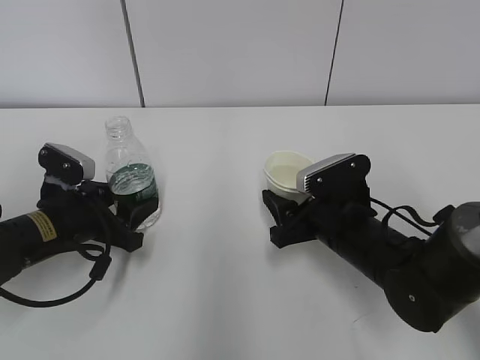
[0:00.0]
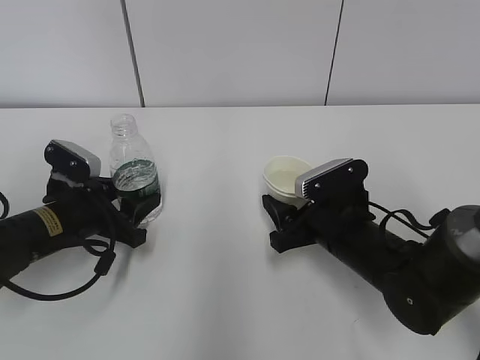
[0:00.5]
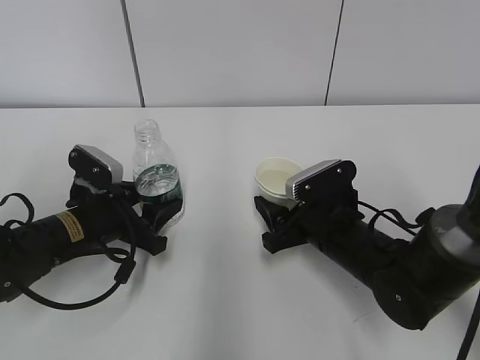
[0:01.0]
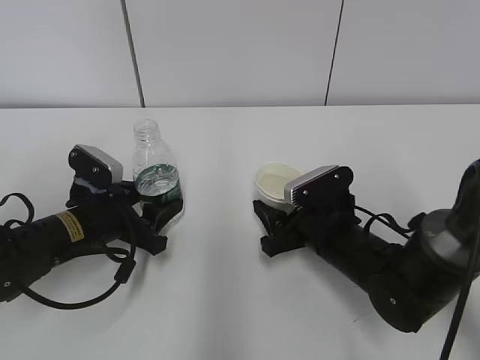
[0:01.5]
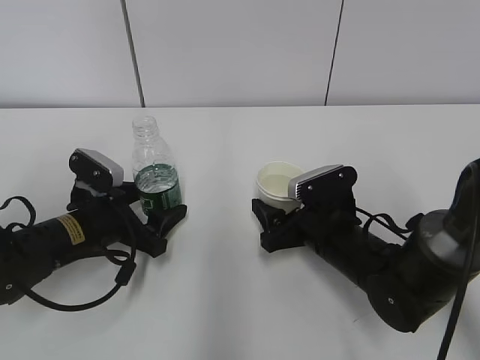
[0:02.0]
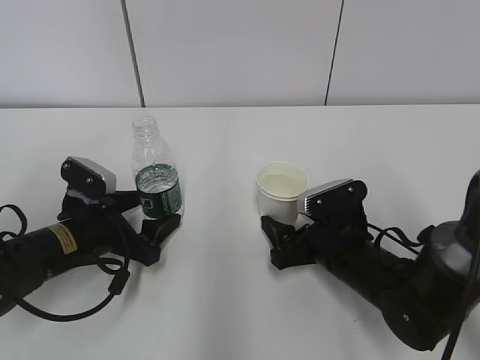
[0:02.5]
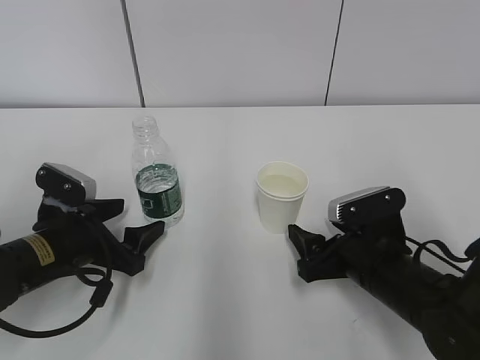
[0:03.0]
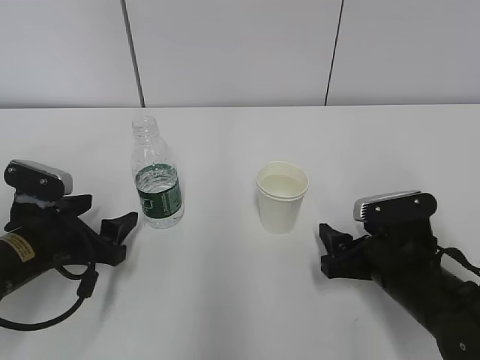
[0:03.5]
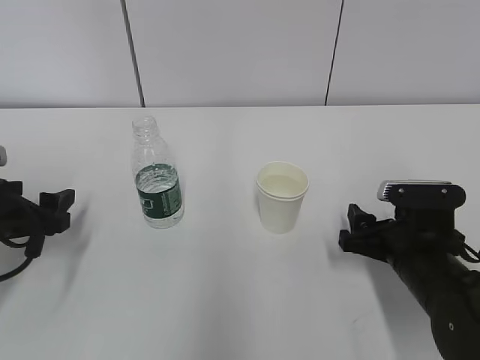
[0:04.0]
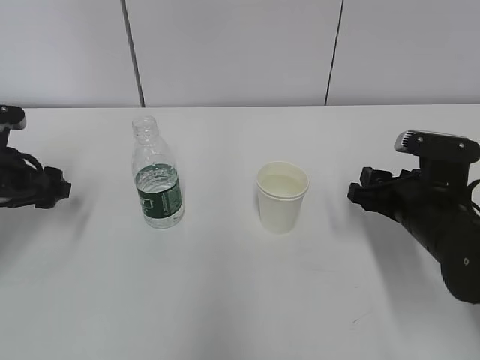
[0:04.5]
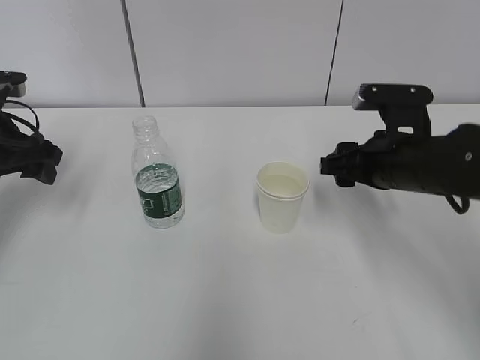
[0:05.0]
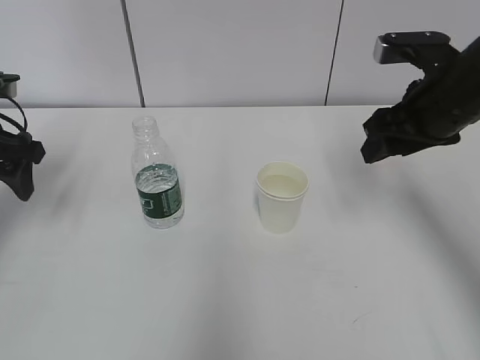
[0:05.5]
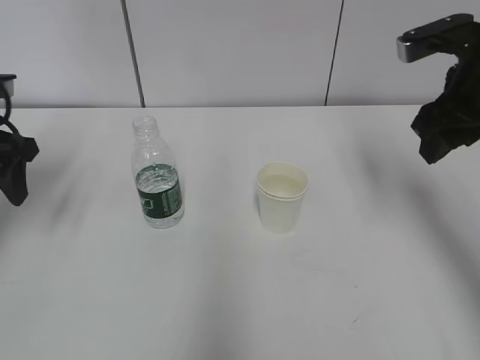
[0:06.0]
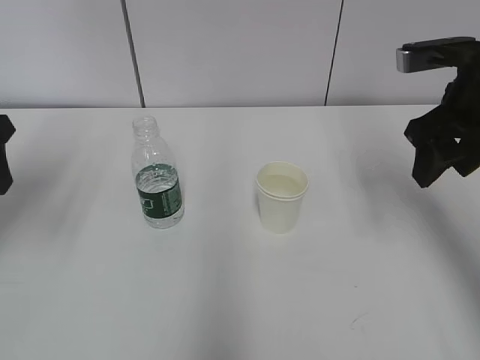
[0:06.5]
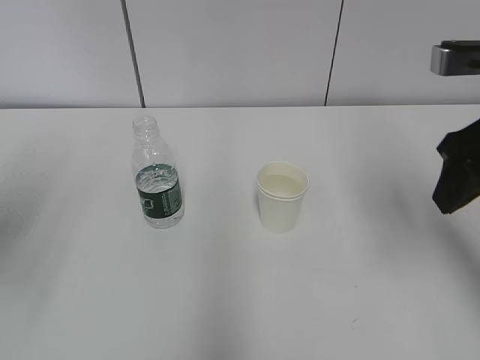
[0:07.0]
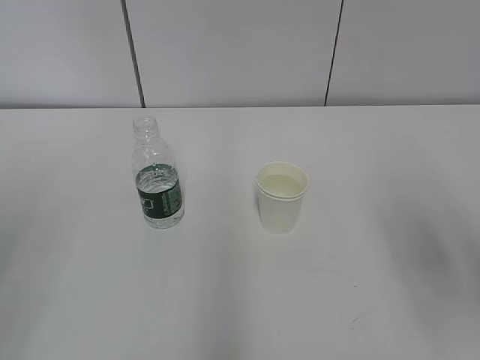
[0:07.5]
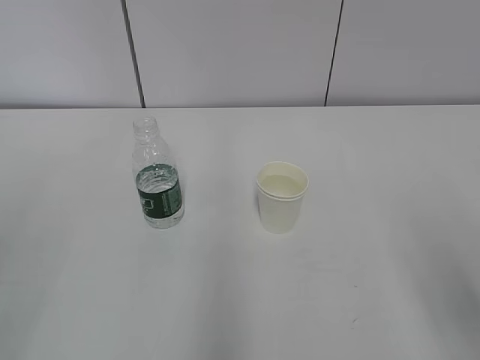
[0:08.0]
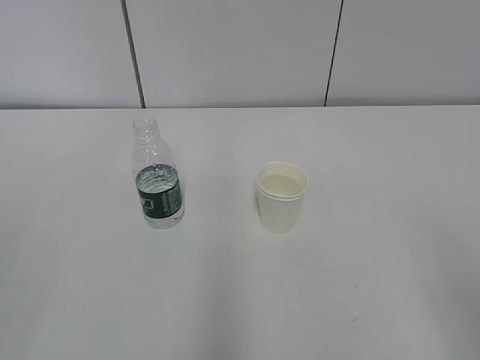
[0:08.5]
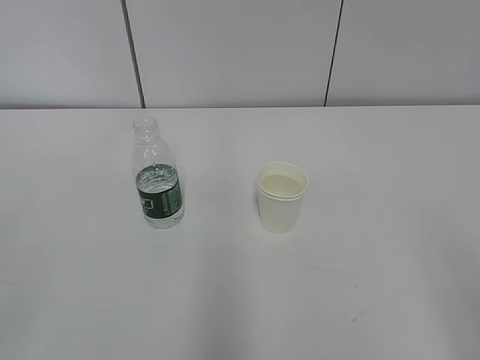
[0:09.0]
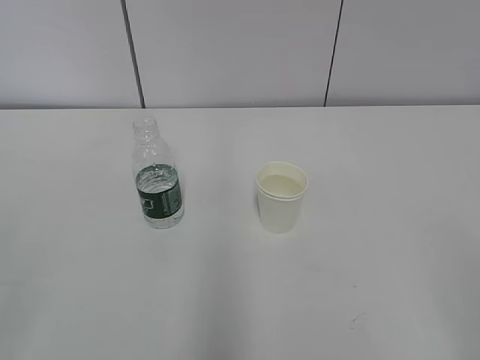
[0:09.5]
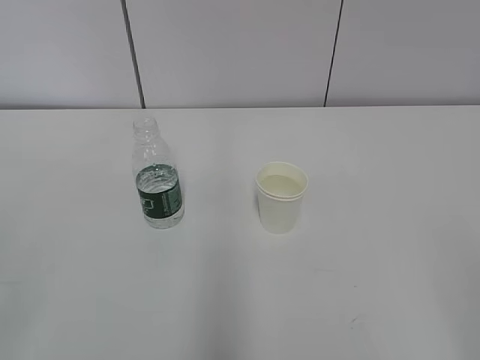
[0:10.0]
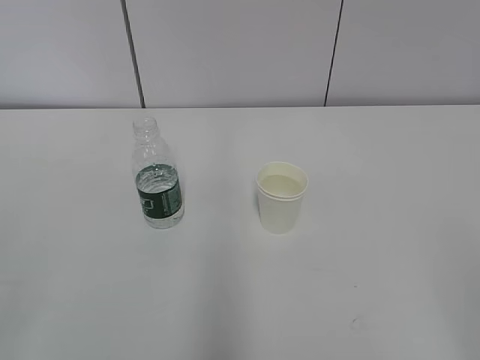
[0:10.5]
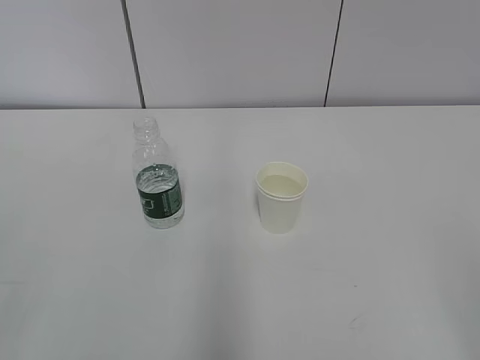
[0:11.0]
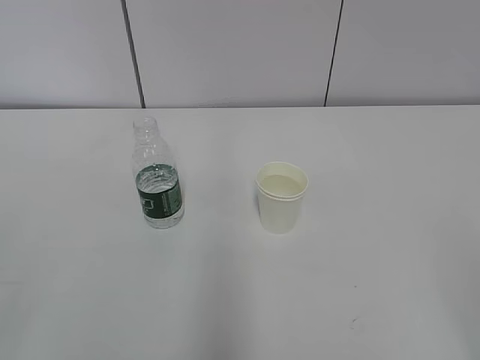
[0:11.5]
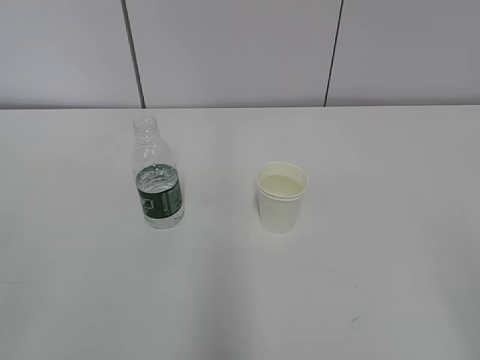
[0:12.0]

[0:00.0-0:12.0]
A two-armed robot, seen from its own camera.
0:00.0 to 0:02.0: The left gripper opens up. Meanwhile the right gripper opens up.
0:02.0 to 0:04.0: The left gripper is displaced to the left by roughly 10 cm, while the right gripper goes some 10 cm to the right and backward.
0:04.0 to 0:06.0: The left gripper heads upward and forward, covering roughly 15 cm. The right gripper moves upward, about 20 cm, and closes up.
0:06.0 to 0:08.0: Both grippers move backward, roughly 25 cm.
0:08.0 to 0:10.0: The right gripper is displaced backward by approximately 10 cm.

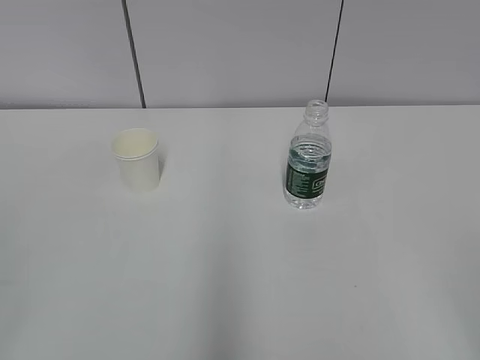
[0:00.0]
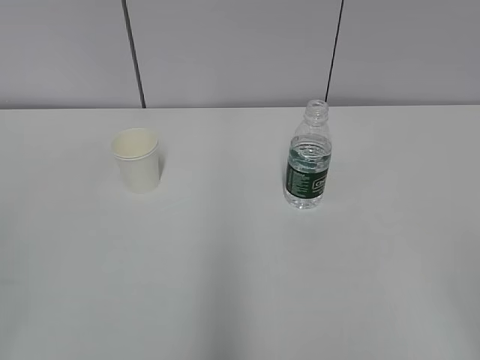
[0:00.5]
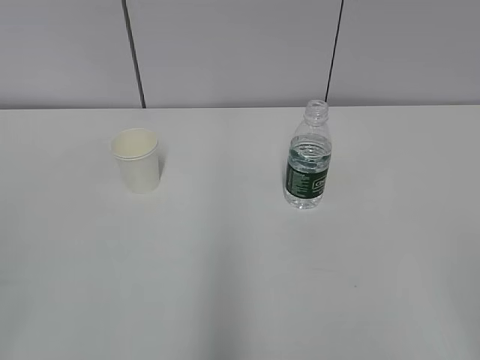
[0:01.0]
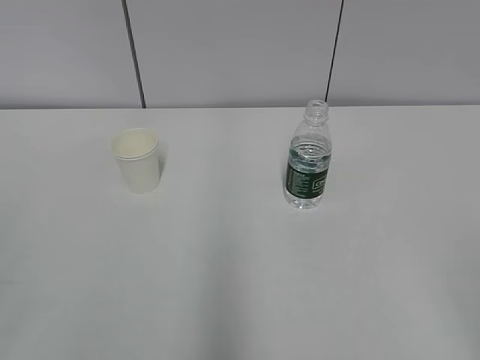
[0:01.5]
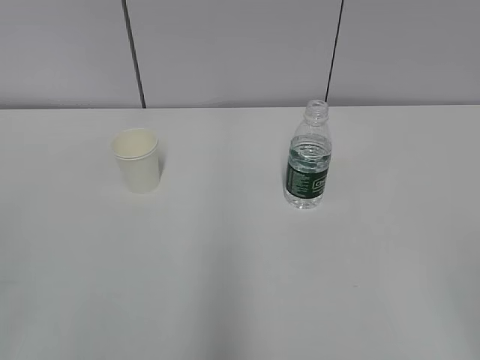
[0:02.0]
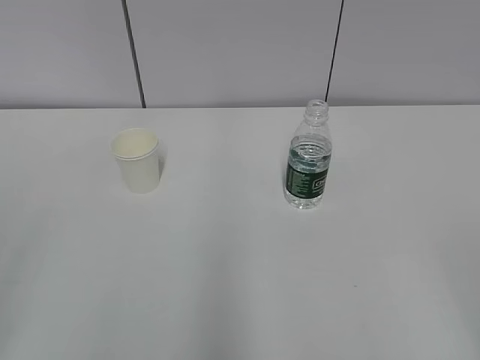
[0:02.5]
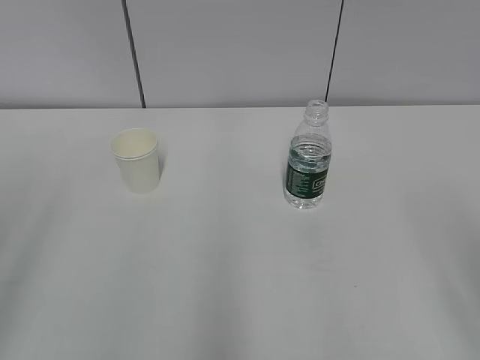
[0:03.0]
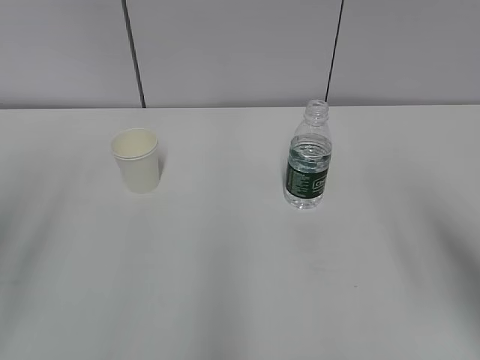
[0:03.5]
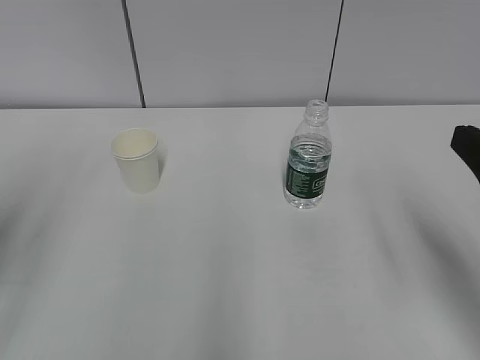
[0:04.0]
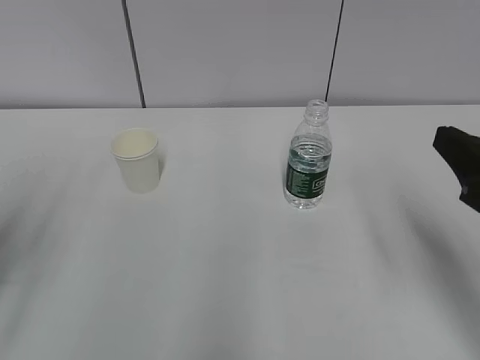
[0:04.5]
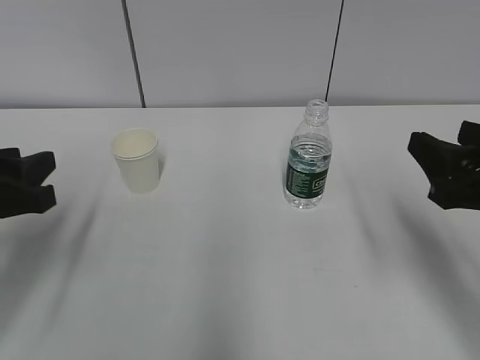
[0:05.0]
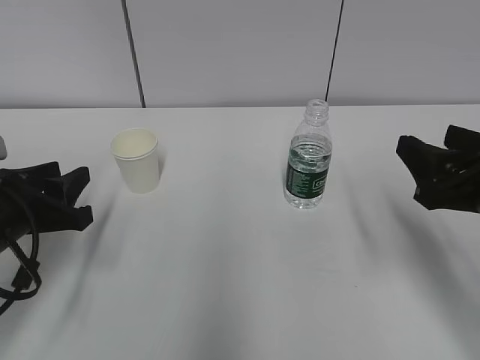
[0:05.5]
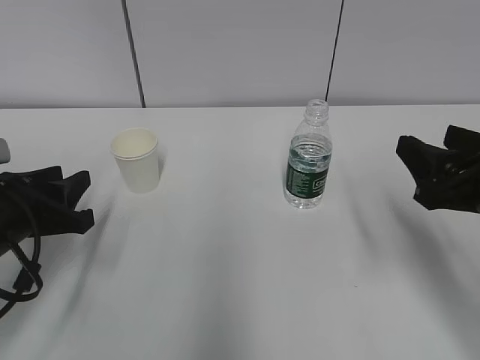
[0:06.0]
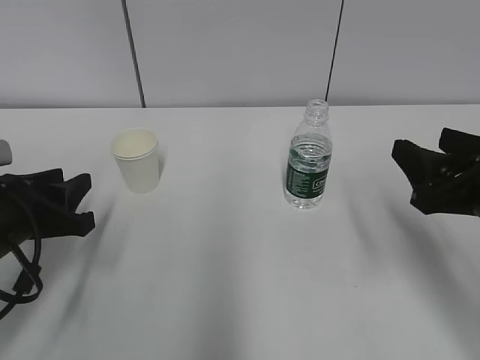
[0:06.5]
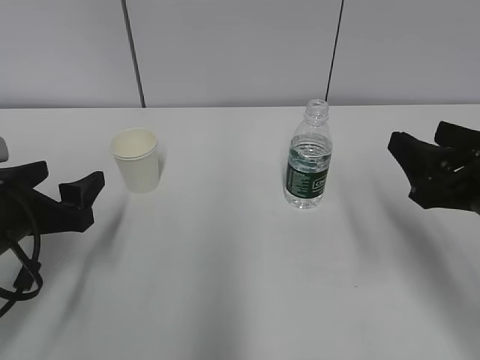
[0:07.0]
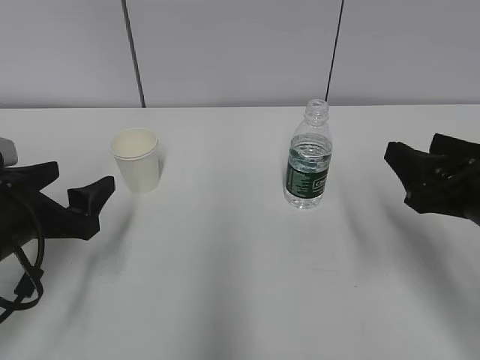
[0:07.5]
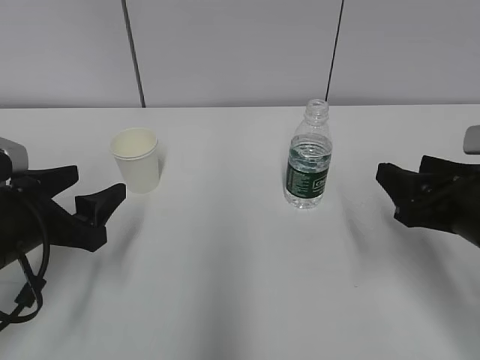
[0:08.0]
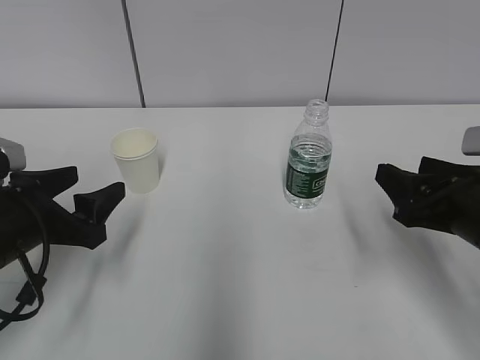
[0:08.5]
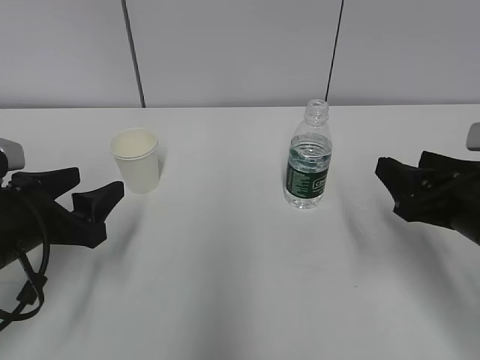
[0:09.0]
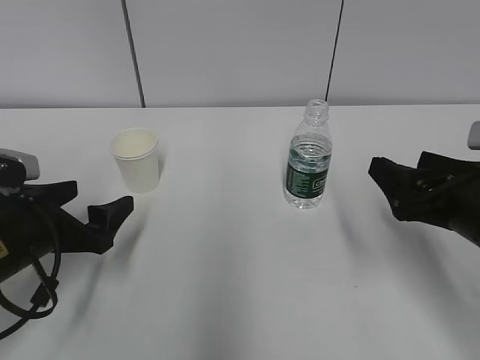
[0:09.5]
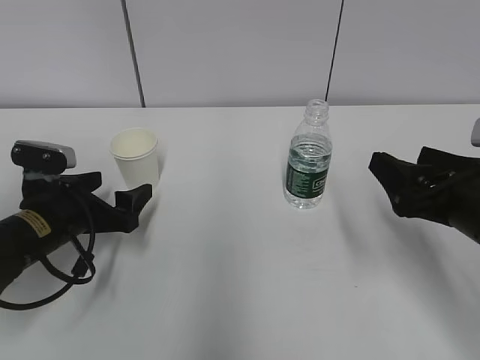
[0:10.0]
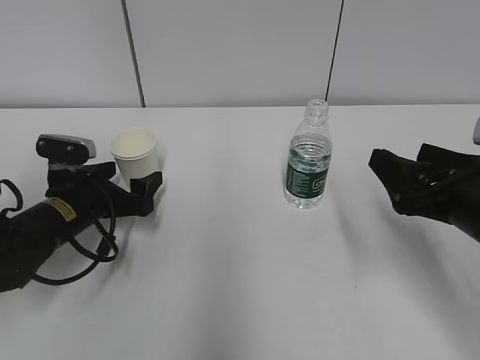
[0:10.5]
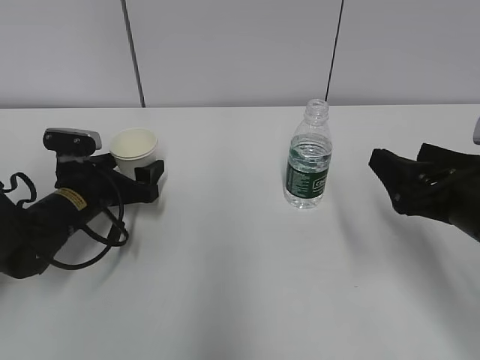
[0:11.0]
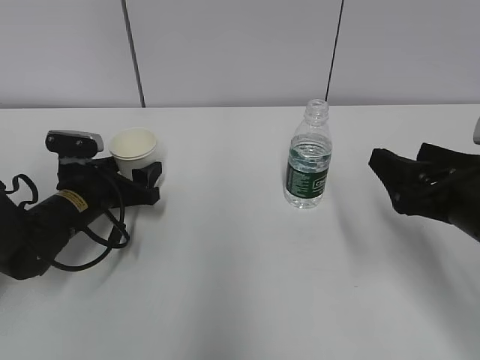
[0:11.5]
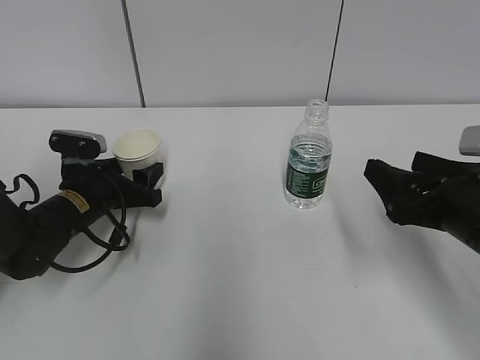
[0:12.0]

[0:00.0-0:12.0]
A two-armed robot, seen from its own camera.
Step, 0:00.0 to 0:10.0: Grab the paper cup with the left hand.
0:02.0 to 0:04.0: Both grippers travel together forward, roughly 15 cm.
0:04.0 to 0:06.0: The right gripper shifts roughly 5 cm forward and downward. The left gripper shifts approximately 20 cm downward and forward.
0:06.0 to 0:08.0: The left gripper opens up.
0:08.0 to 0:10.0: The right gripper opens. Meanwhile the left gripper goes about 5 cm forward.
0:10.0 to 0:12.0: The left gripper heads forward, covering some 5 cm, and closes.

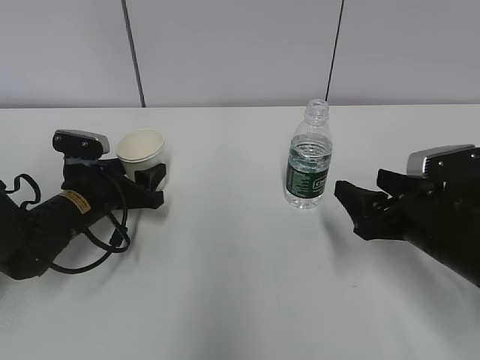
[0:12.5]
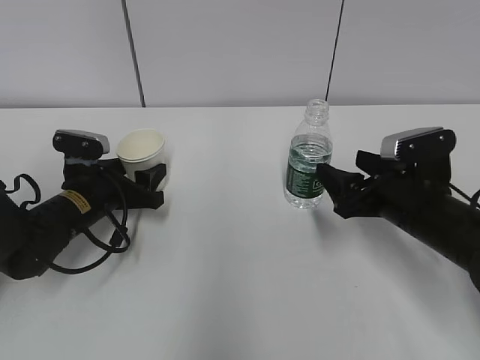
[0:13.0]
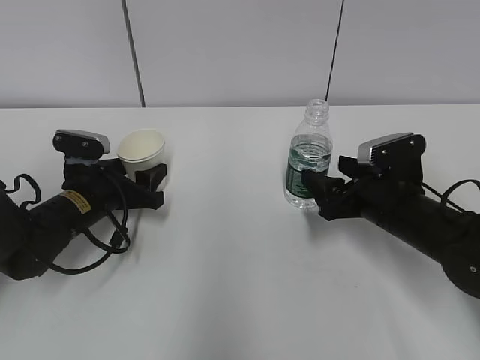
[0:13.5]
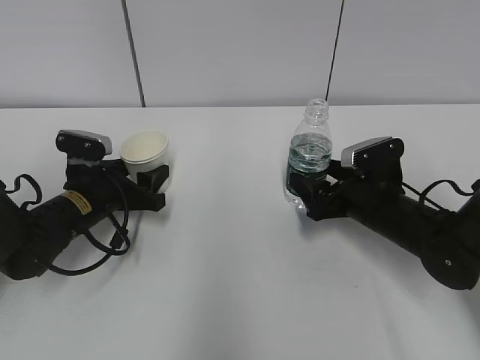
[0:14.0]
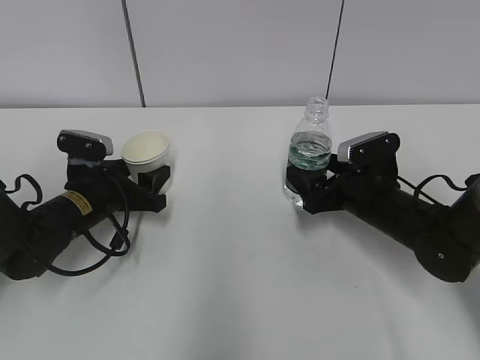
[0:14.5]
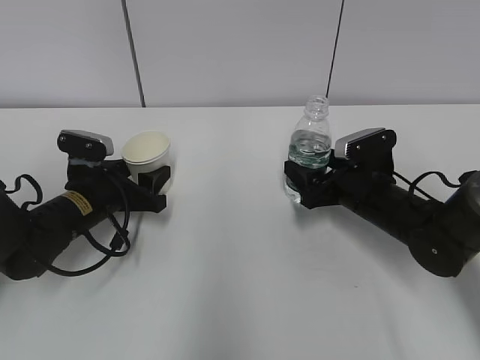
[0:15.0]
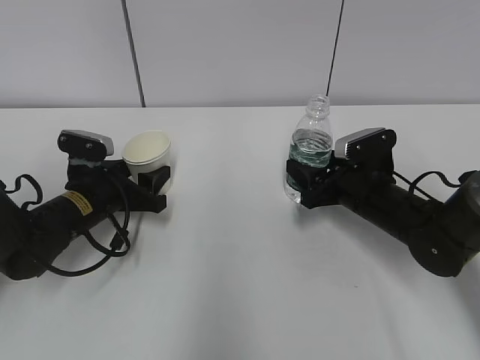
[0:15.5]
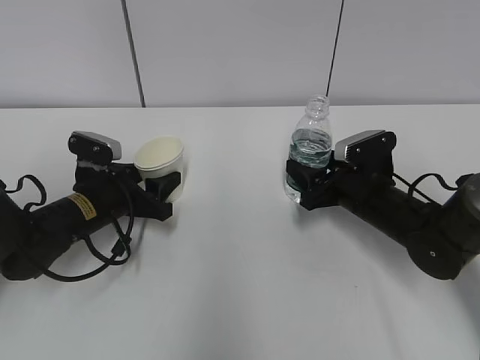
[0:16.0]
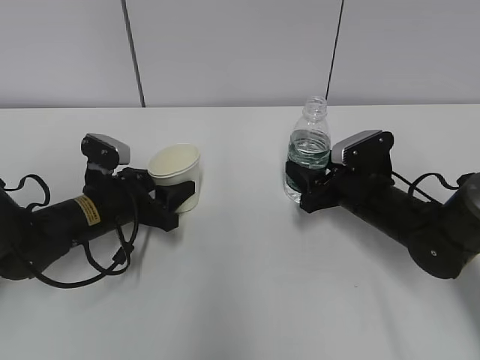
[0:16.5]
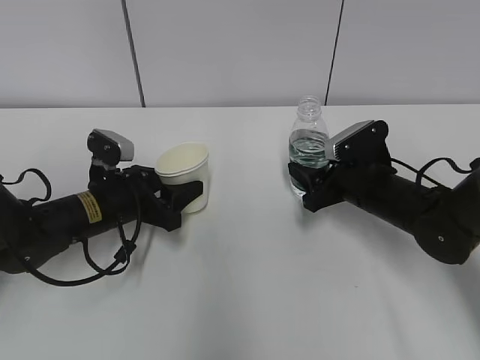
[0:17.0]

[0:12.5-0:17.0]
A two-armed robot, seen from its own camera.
0:12.5 to 0:14.5: The right gripper shifts approximately 10 cm forward.
0:14.5 to 0:17.0: The right gripper closes.
